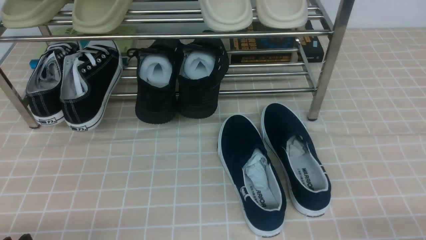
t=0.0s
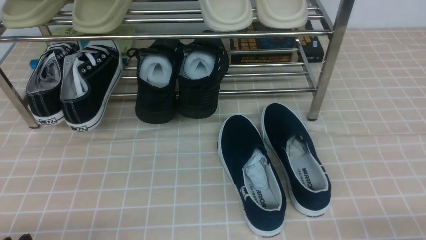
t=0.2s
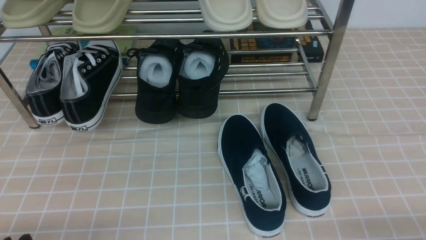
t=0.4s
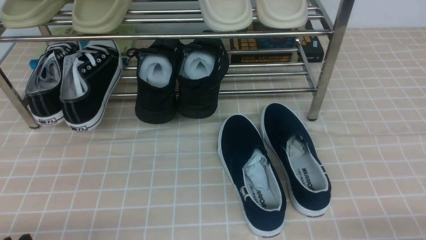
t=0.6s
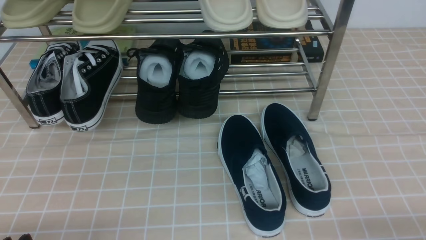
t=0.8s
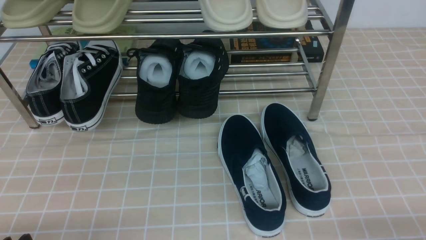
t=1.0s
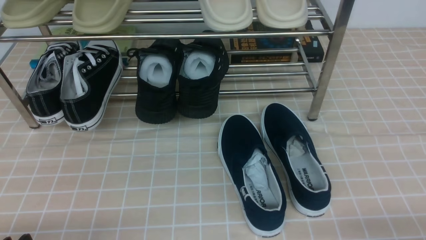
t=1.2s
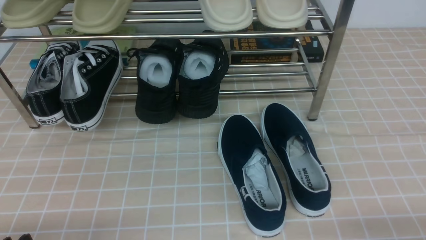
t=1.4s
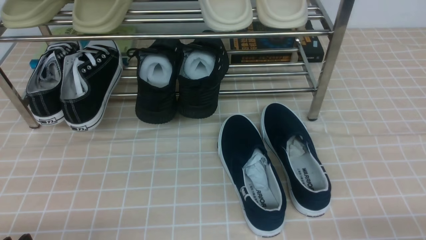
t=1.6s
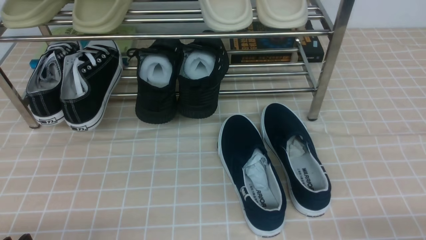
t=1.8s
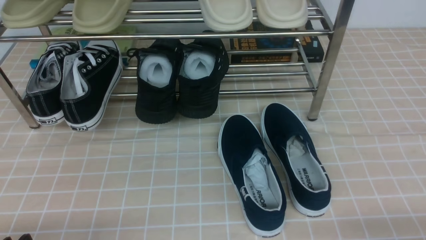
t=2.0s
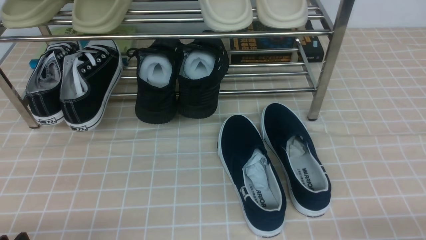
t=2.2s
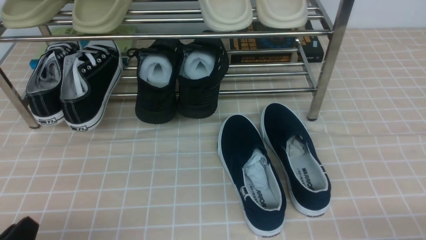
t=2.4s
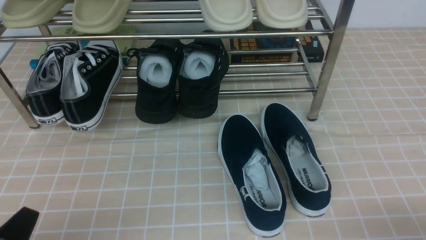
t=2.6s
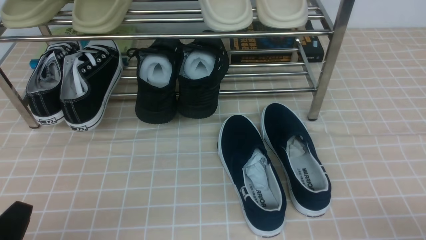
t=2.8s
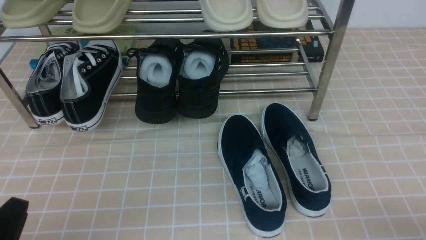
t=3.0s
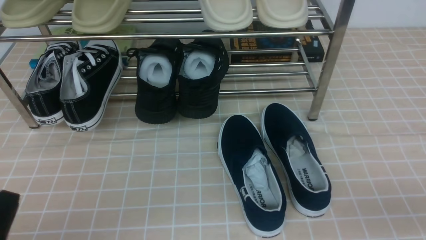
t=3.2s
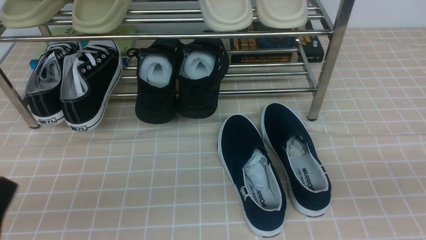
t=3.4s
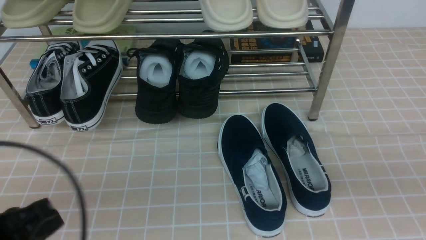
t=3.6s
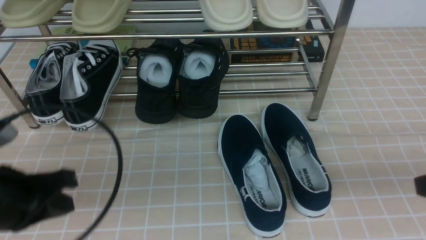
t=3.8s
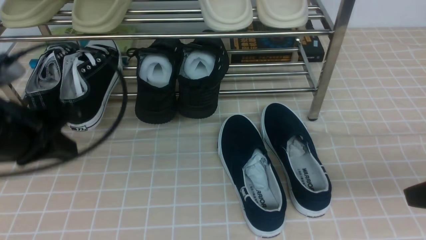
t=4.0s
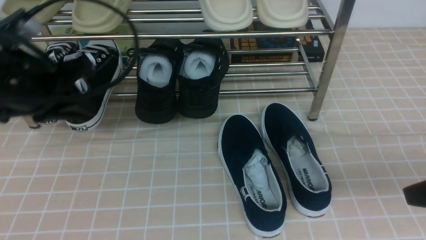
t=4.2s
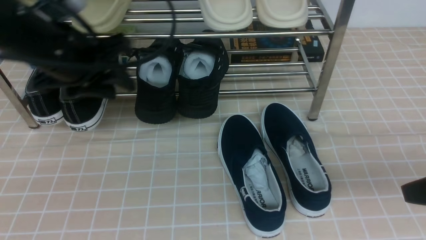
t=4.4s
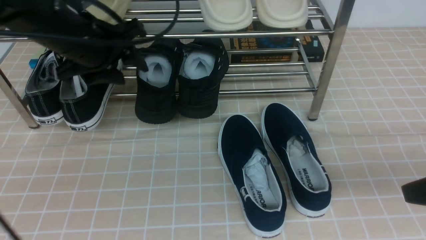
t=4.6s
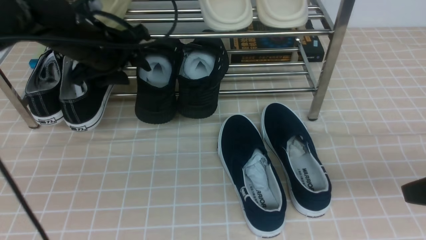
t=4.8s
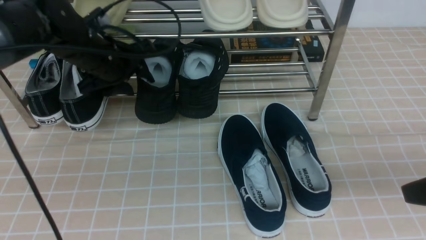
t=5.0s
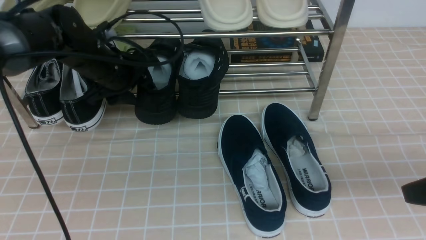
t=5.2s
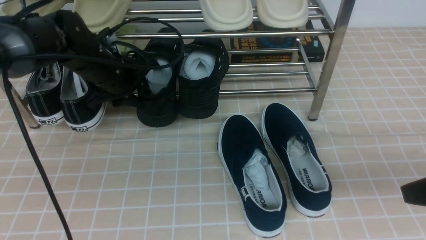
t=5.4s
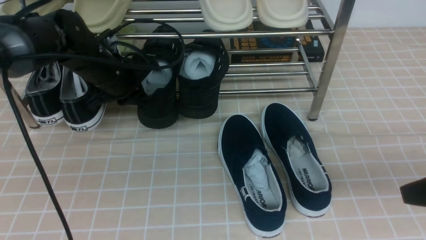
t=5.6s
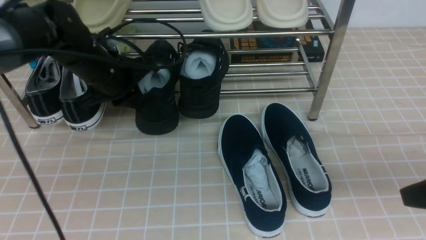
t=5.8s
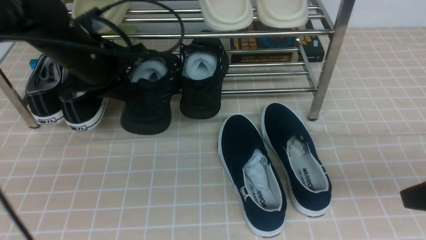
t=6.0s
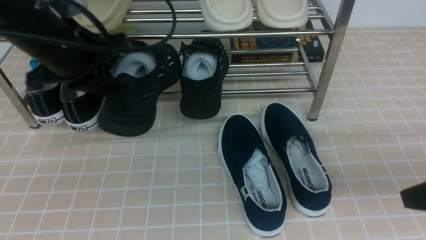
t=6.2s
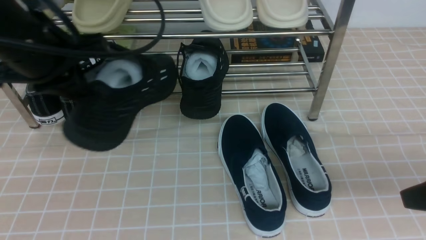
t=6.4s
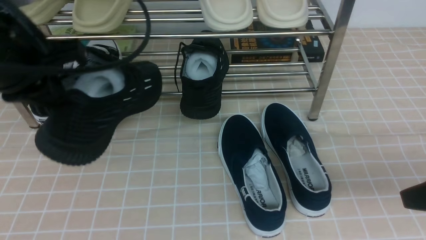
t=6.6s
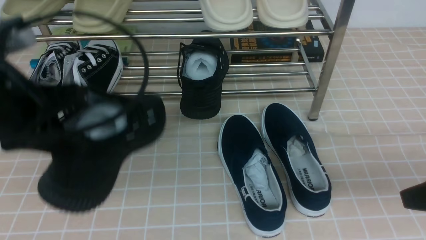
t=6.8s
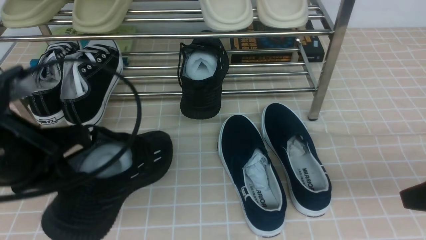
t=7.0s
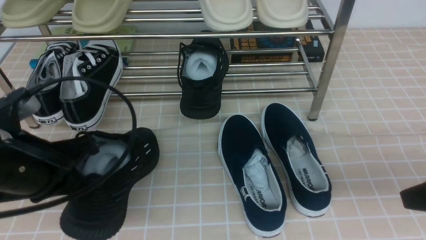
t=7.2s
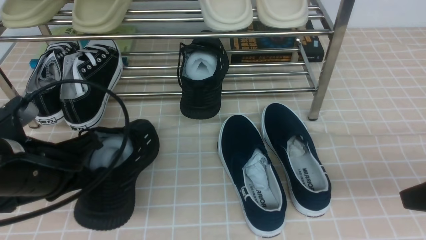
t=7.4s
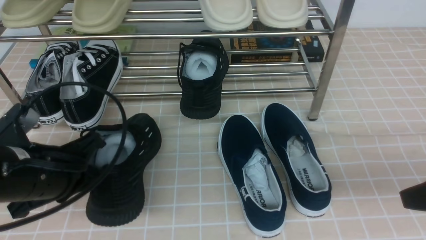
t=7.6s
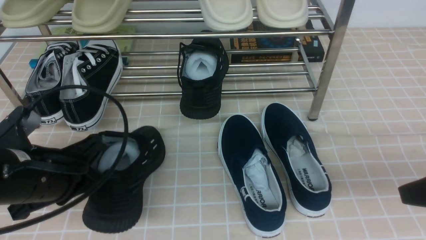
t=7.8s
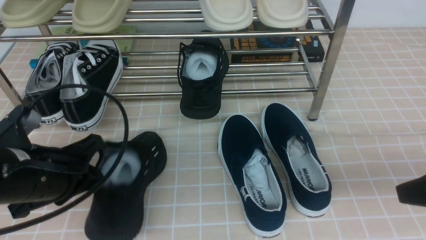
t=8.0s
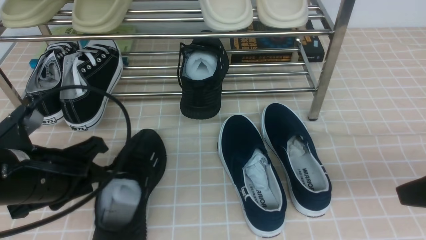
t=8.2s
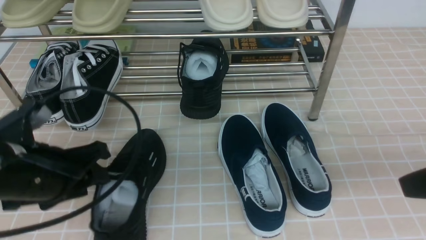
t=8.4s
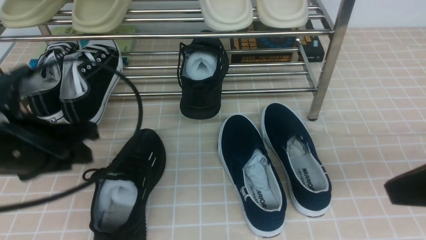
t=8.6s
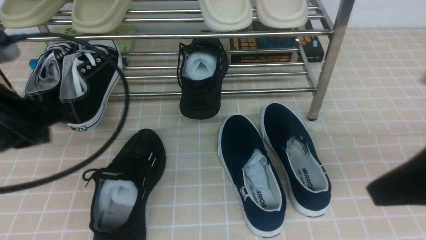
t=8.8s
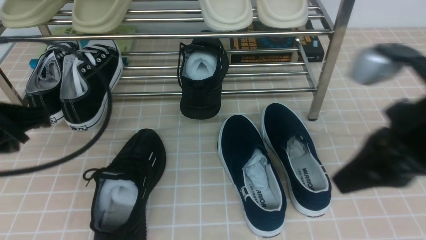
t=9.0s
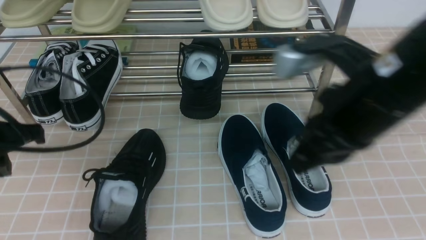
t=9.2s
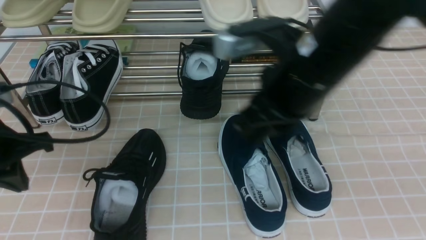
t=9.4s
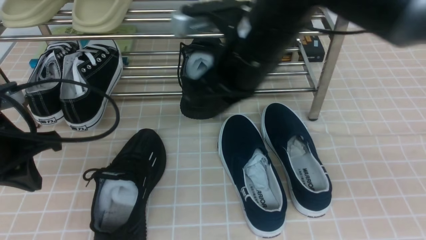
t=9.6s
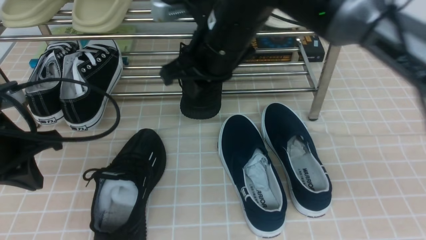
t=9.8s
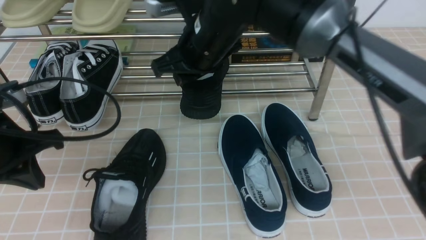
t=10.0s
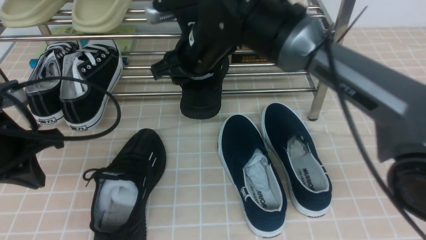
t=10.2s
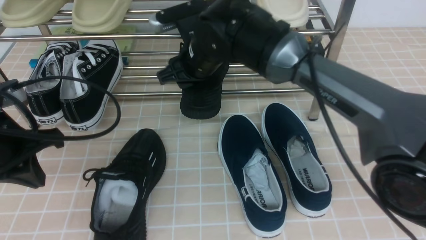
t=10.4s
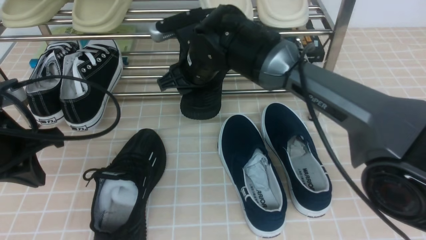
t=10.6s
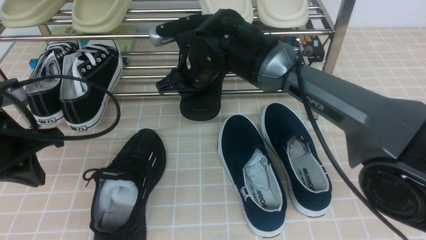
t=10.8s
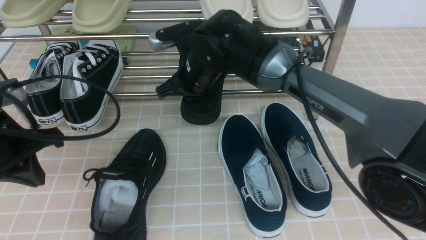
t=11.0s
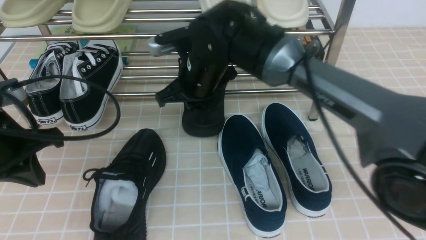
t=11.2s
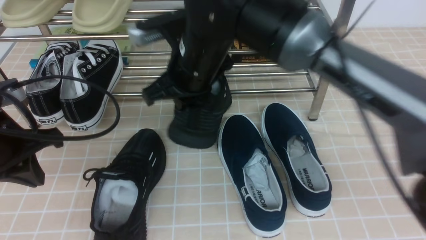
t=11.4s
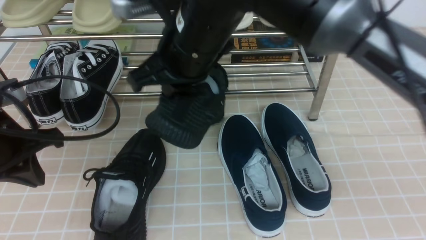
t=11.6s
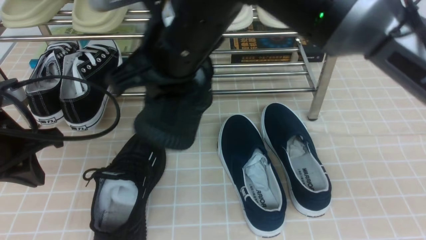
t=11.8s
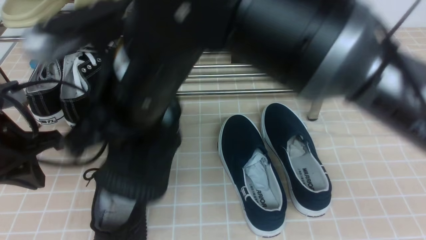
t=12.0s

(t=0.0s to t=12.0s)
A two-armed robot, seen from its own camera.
Step, t=0.0s - t=5.4s: use the left arm to clamp a shoe in the middle of the shoe rack.
Step, t=5.6s - t=8.2s: Use your left arm to remove the clamped shoe from the shoe rack and put it down.
Step, t=8.4s - t=9.8s: use the right arm to clamp a shoe in the middle of the shoe rack.
t=0.0s - t=1.6s: The two grippers keep their place.
t=3.0s - t=4.4s: The right gripper shifts roughly 15 cm forward and upward, and closes its fingers; the left gripper goes some 30 cm forward and upward, and closes, then opens again.
t=4.4s - t=6.0s: The left gripper reaches some 10 cm downward, then returns, and closes.
t=6.0s - t=7.6s: The left gripper shifts roughly 15 cm backward and downward.
t=7.6s - t=9.0s: The left gripper travels upward by some 5 cm, and opens, then closes again; the right gripper heads to the left and upward, covering approximately 10 cm.
t=9.0s - t=10.4s: The right gripper shifts some 30 cm forward and to the left, and opens up. The left gripper moves about 5 cm.
t=10.4s - t=12.0s: The right gripper shifts about 20 cm backward and upward, and closes up.

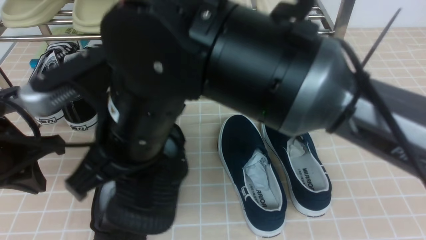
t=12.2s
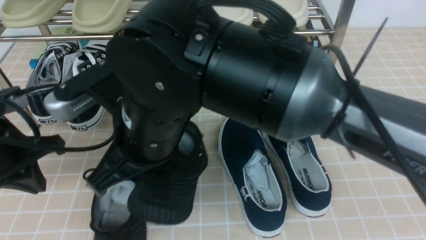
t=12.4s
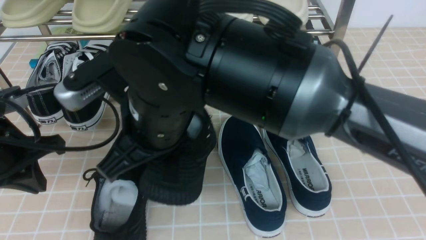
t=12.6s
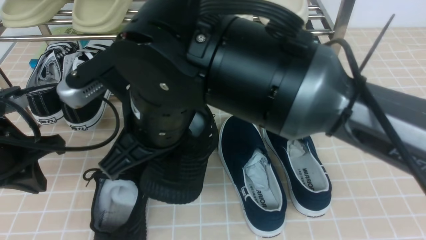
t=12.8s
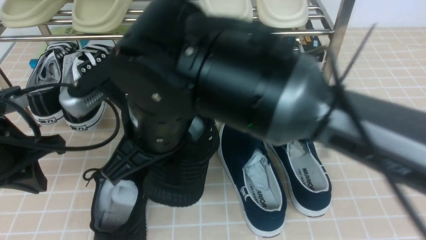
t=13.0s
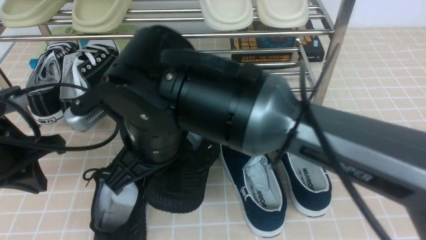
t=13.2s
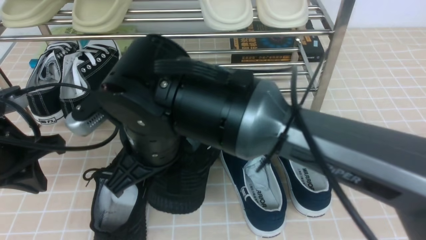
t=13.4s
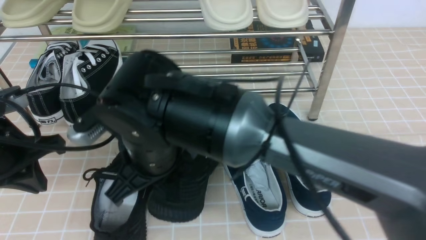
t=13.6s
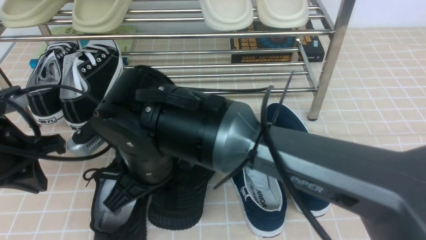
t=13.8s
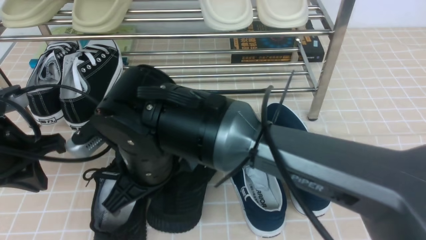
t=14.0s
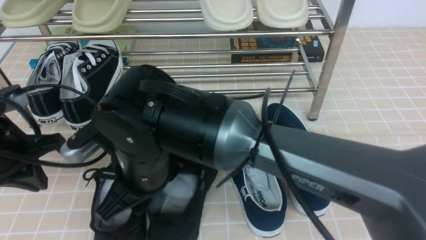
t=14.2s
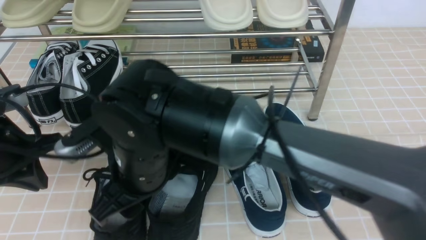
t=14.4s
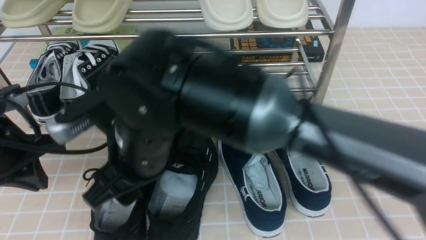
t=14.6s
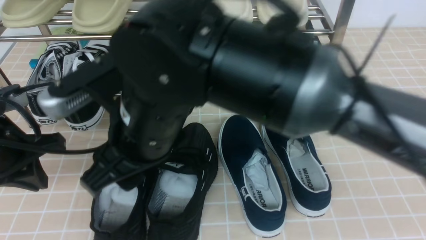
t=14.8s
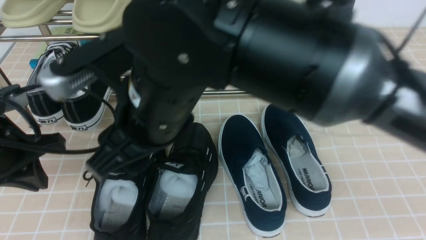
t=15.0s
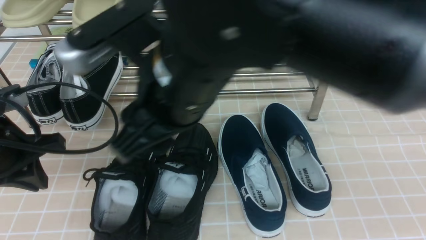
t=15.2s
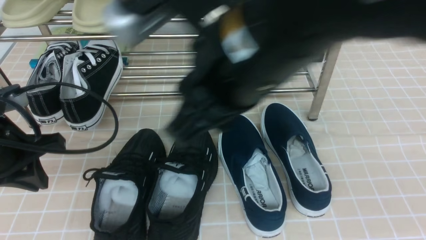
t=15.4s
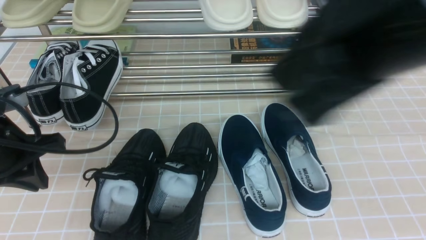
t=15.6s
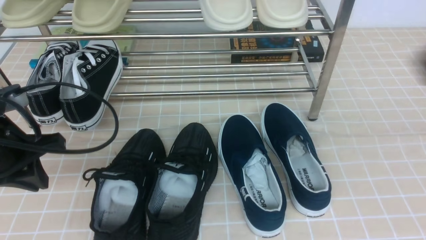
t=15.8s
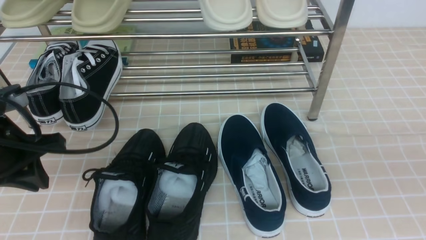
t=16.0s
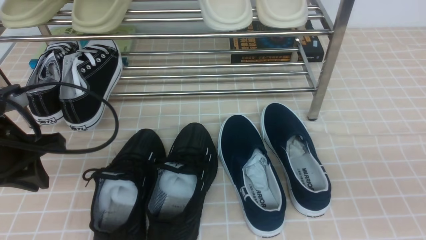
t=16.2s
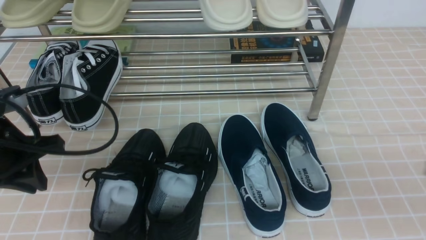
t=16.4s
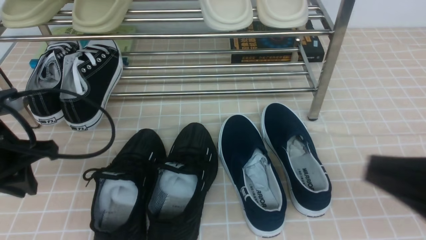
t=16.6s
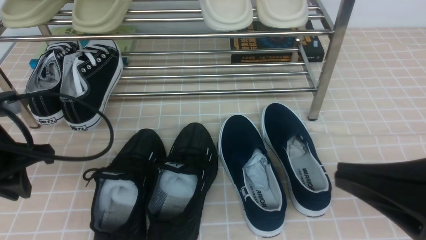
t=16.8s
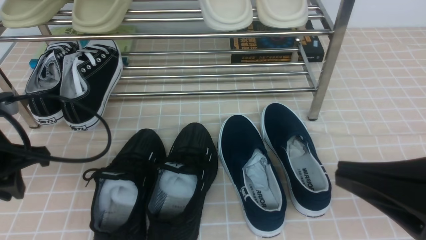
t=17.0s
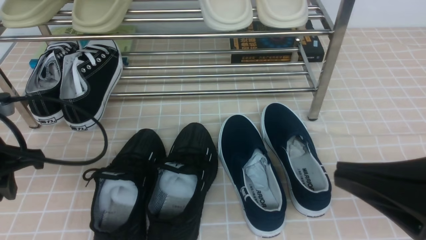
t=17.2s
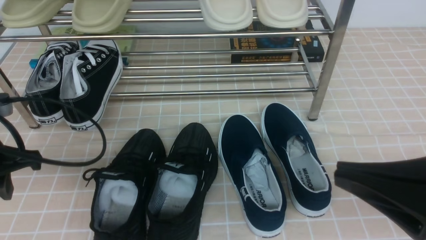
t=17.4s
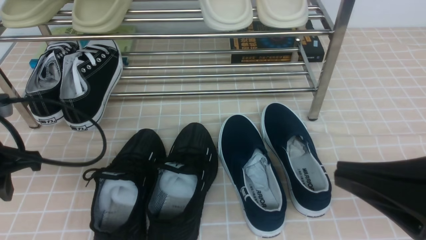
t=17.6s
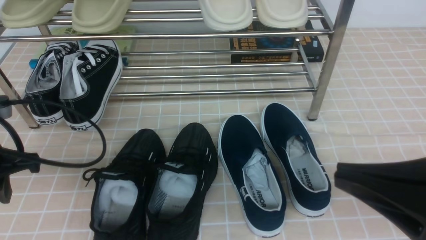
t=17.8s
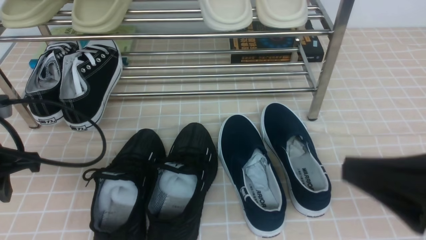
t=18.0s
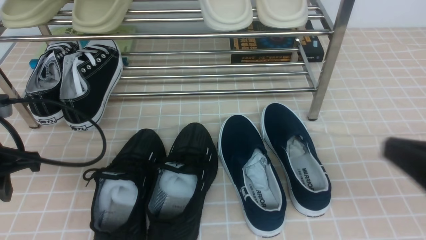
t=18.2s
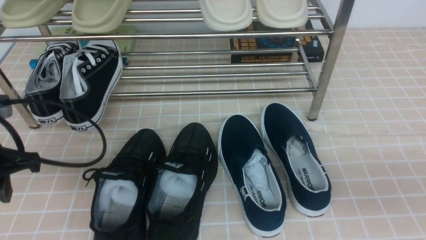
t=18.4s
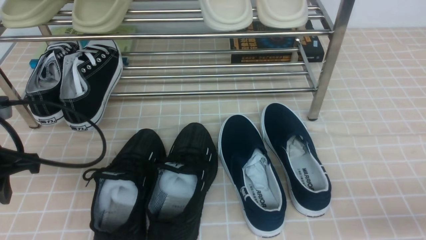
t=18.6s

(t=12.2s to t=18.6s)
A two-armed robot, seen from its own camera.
Step, t=12.2s - t=14.6s: use the right arm to take out the clamped shoe from the shoe rack and put it down.
t=12.2s - t=13.8s: The right gripper goes about 10 cm downward.
t=13.8s - t=15.4s: The right gripper travels upward and to the right by approximately 20 cm, and opens up.
t=15.4s - t=17.0s: The right gripper travels to the right, downward and backward by approximately 20 cm, and closes.
t=17.0s - t=18.6s: The right gripper travels downward and to the right by about 15 cm.
